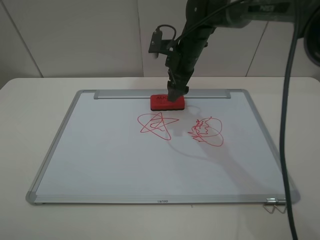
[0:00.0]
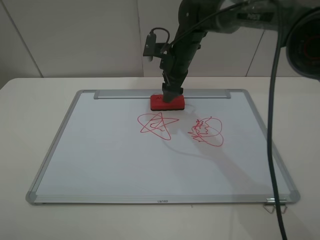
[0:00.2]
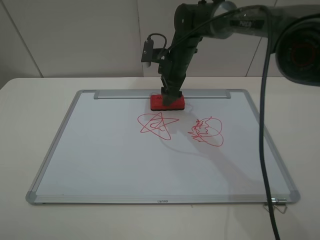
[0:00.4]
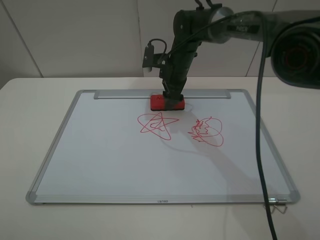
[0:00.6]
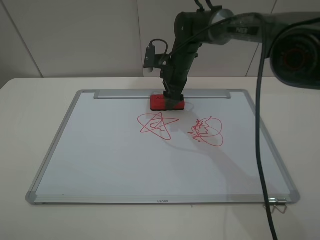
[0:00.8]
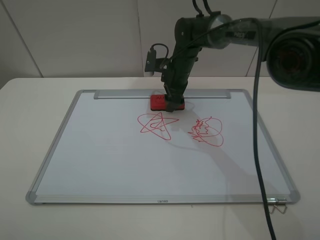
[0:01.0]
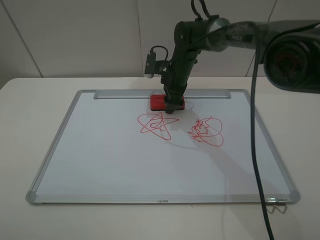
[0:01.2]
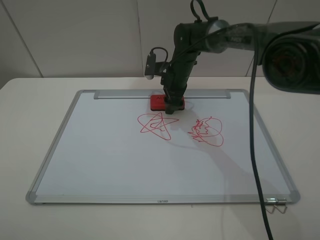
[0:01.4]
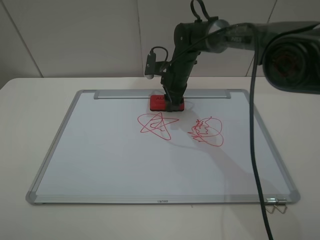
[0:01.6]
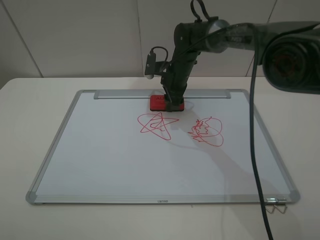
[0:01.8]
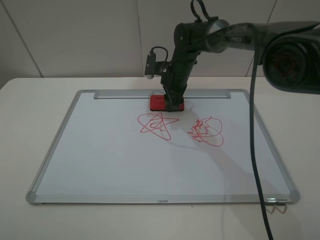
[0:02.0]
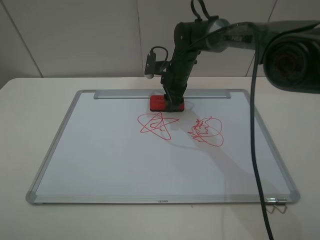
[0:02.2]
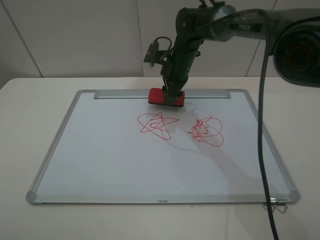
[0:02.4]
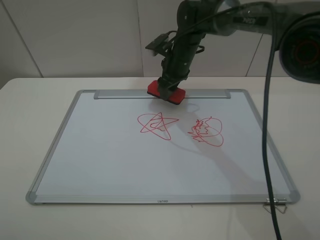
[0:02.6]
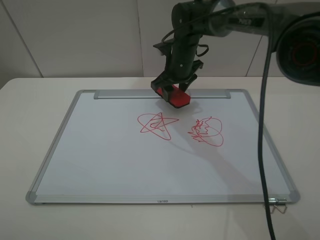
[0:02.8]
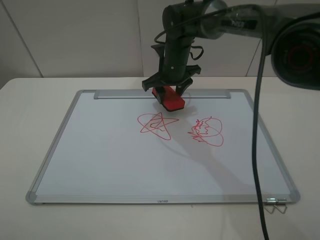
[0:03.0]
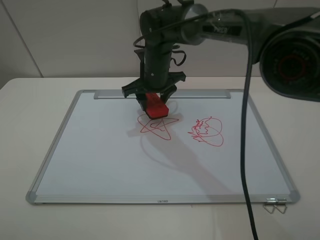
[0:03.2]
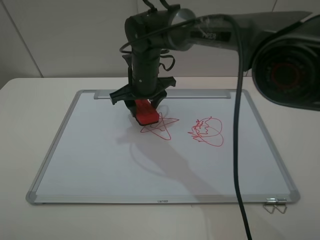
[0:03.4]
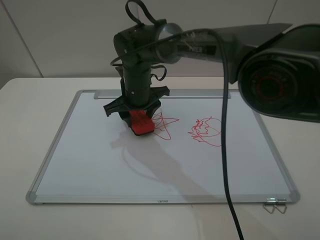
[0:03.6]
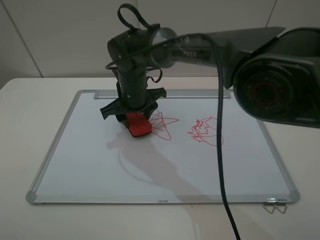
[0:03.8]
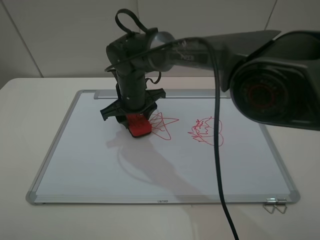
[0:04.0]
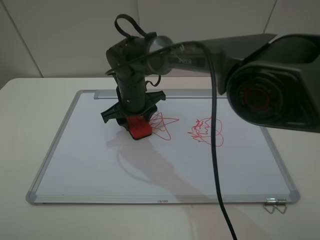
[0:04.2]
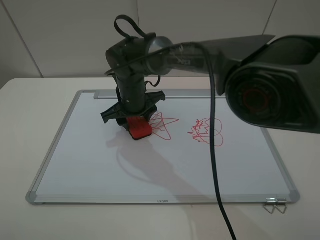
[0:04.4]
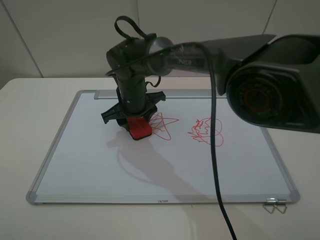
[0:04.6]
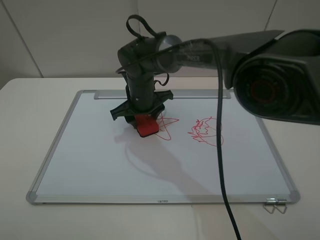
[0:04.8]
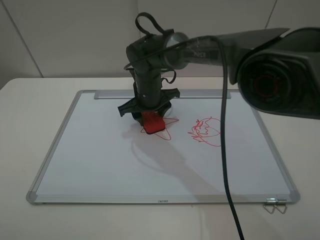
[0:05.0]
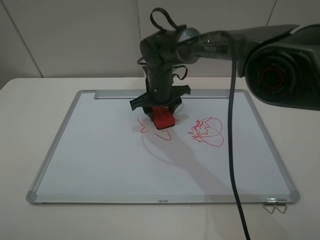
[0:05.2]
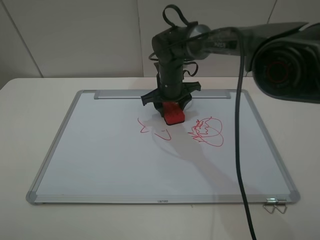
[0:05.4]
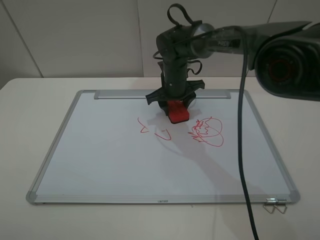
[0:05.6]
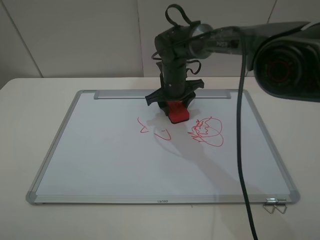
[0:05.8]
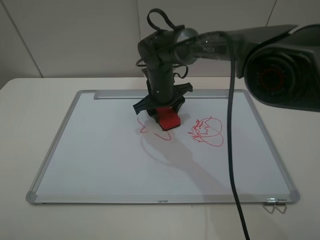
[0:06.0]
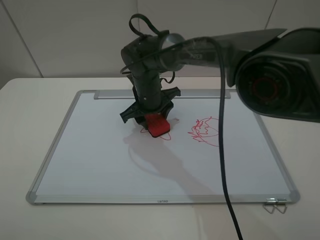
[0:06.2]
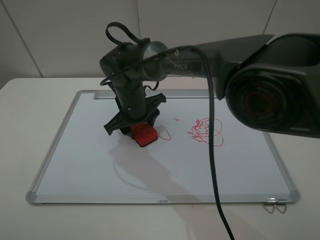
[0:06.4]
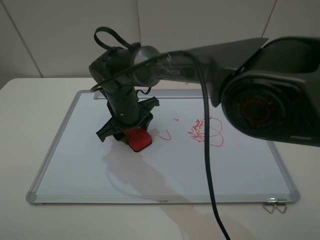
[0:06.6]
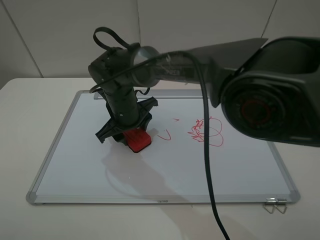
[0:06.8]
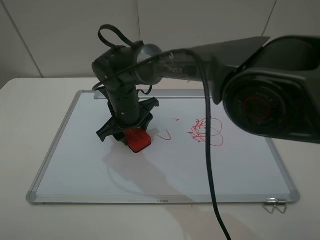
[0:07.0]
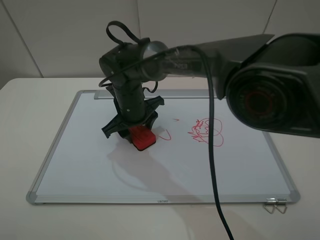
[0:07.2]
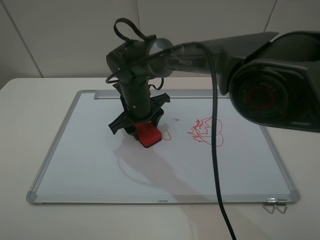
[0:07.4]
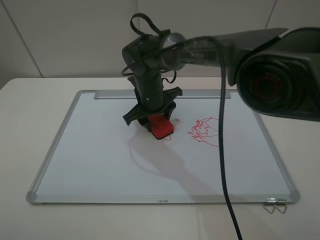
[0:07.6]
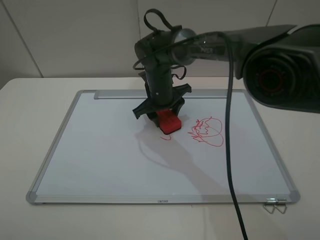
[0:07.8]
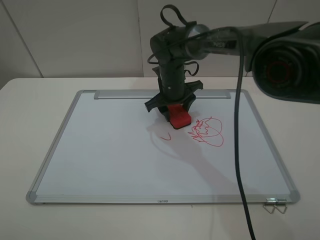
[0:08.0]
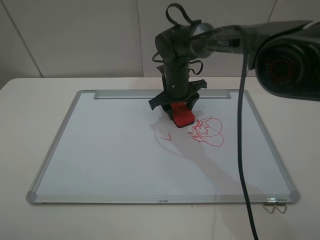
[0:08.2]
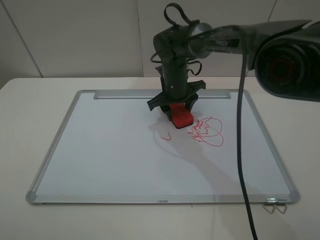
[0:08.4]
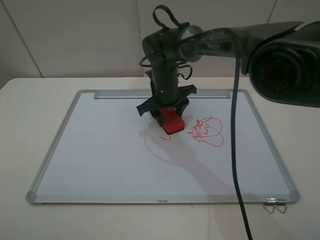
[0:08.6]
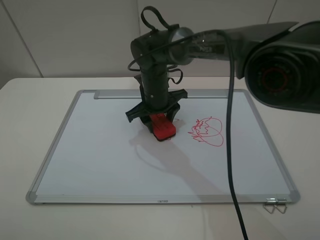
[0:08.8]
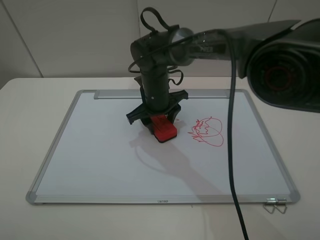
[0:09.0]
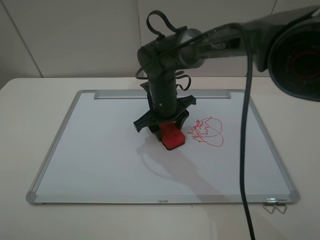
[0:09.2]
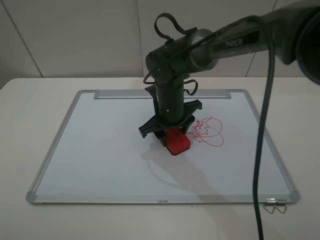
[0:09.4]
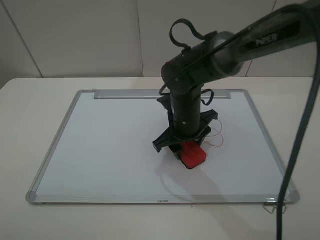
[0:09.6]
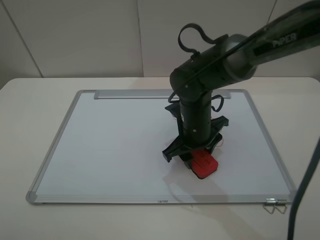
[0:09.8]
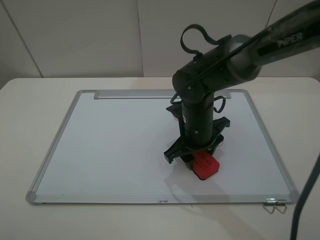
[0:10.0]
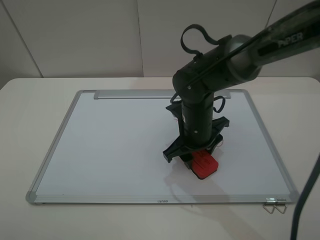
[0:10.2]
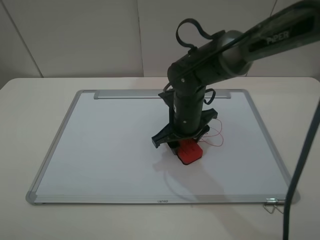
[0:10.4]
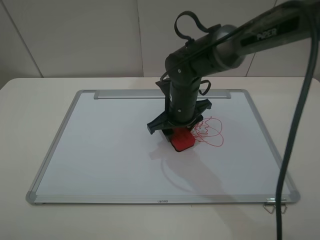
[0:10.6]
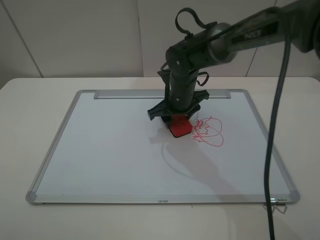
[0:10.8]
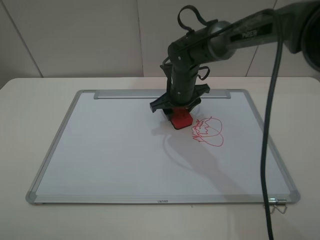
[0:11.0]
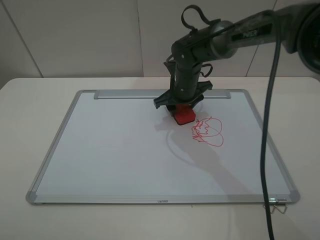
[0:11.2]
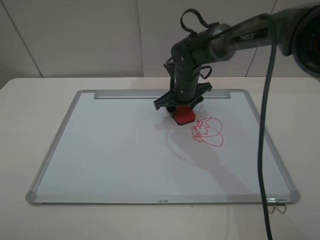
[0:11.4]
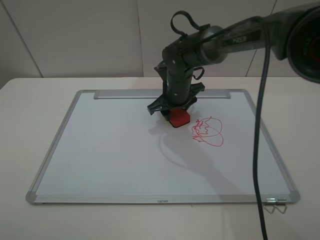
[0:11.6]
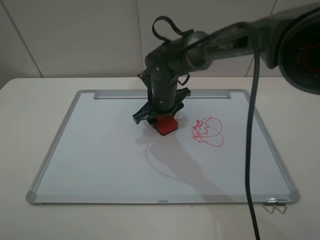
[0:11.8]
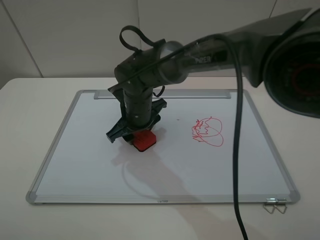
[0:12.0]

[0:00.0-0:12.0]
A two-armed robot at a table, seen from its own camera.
0:00.0 to 0:01.6: The right gripper travels downward by some 5 cm, and closes its fingers.
0:01.6 to 0:03.0: The right gripper moves some 5 cm.
0:03.0 to 0:04.4: The right gripper heads to the left and backward, covering some 10 cm.
0:04.4 to 0:06.0: The right gripper is displaced to the right by about 5 cm.
0:09.0 to 0:10.4: The right gripper travels backward and to the right by approximately 10 cm.
0:10.4 to 0:12.0: The right gripper is displaced to the left by some 10 cm.

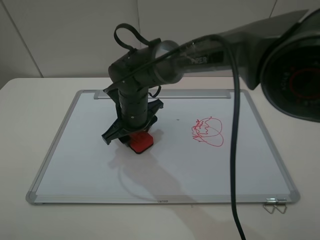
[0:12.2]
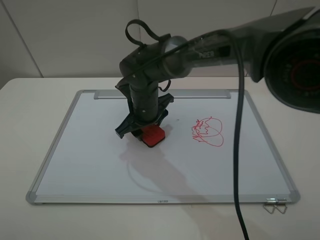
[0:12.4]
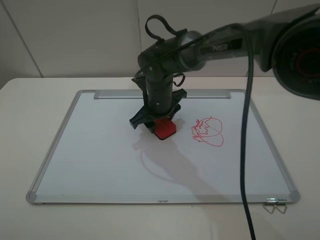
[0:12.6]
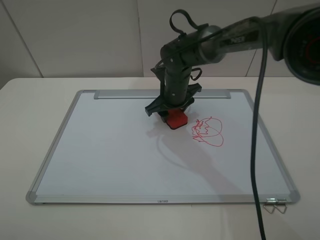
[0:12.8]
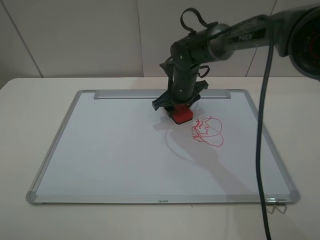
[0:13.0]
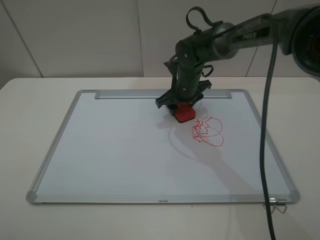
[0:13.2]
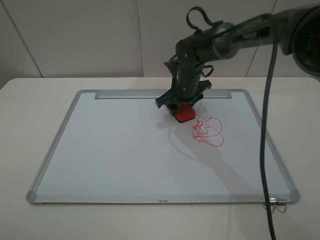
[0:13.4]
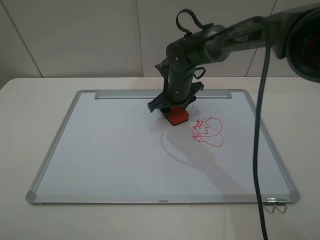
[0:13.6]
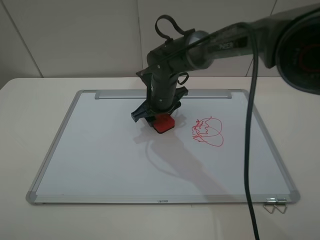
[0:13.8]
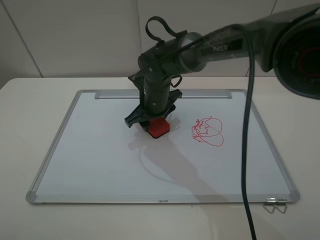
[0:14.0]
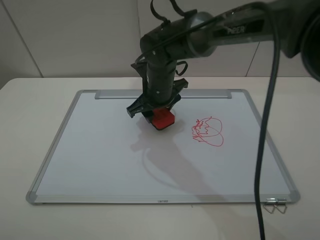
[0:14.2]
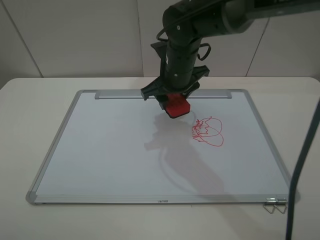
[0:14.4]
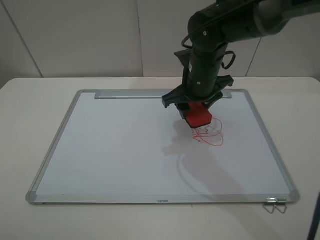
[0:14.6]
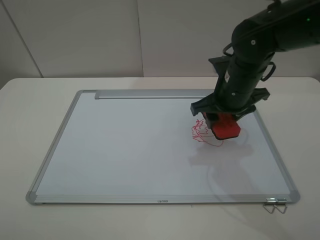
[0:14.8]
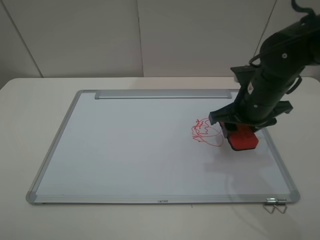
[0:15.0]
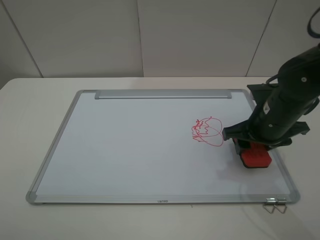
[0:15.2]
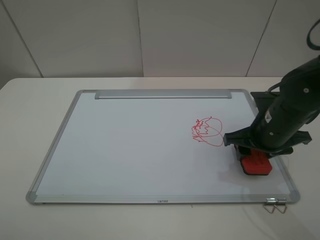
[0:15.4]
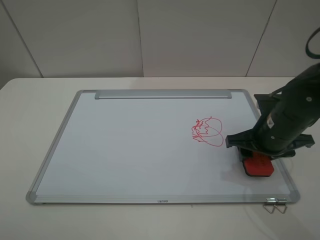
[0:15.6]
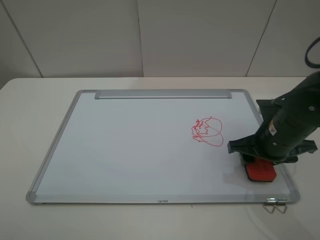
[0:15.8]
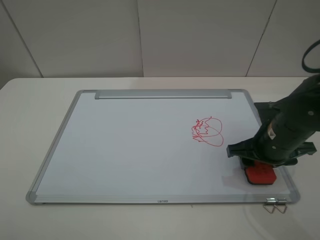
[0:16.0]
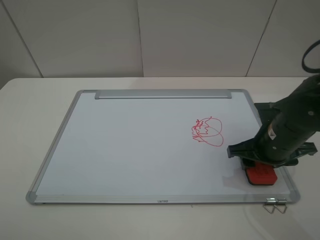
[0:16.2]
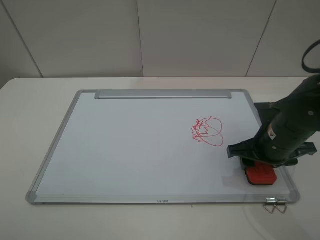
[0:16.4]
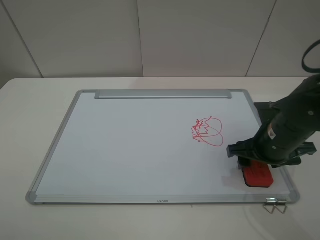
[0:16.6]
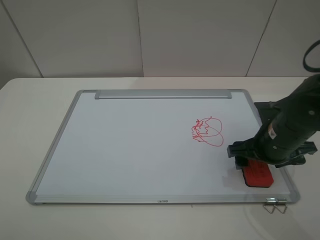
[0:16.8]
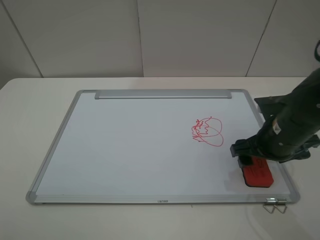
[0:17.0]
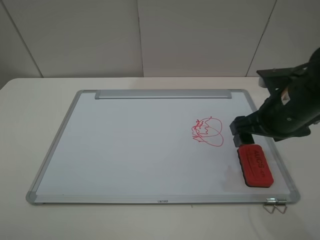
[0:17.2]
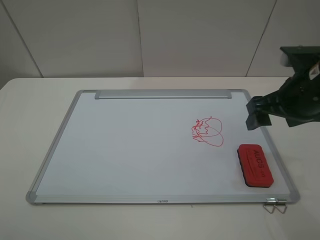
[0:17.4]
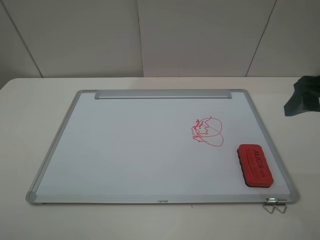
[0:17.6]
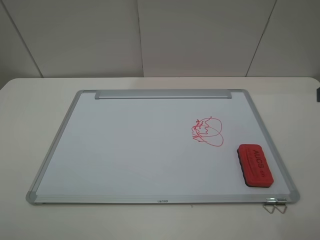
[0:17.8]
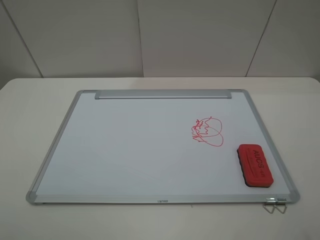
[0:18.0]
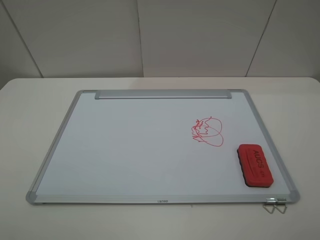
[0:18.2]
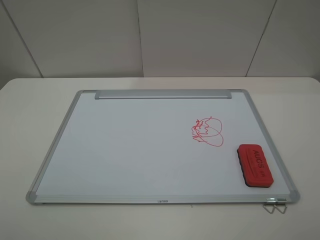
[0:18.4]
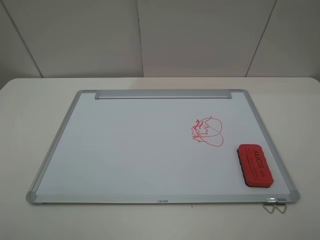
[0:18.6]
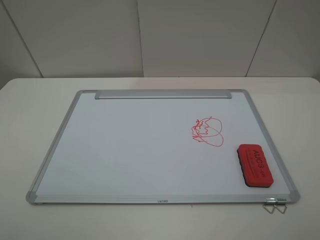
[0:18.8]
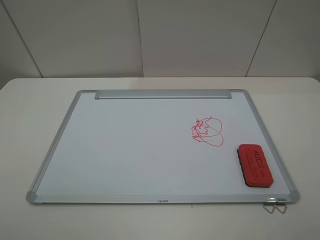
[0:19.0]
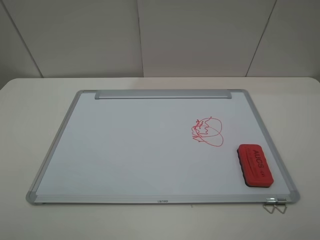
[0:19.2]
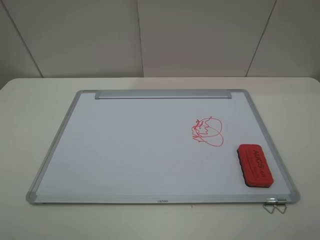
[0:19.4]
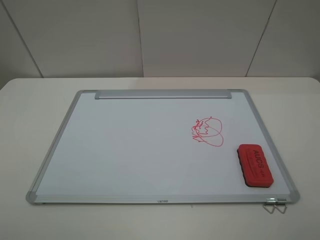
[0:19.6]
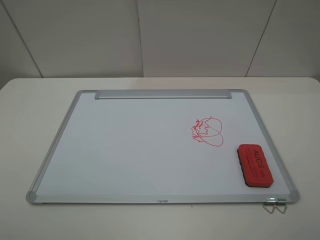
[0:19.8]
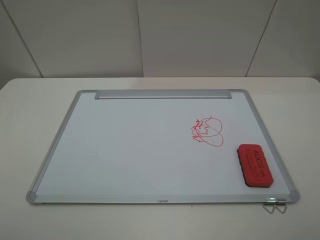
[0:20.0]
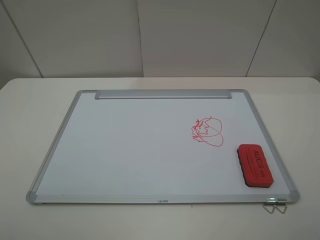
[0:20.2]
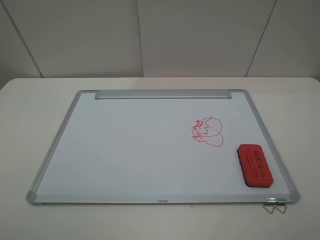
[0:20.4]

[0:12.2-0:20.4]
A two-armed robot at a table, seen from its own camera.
Step, 0:12.2 to 0:14.2: Grasp the eraser and wipe the blackboard with the right gripper.
Step, 0:14.4 to 0:17.0: Place the eraser with the right gripper.
0:12.2 to 0:13.8: The right gripper shifts approximately 10 cm to the right and forward.
0:13.8 to 0:15.4: The right gripper heads to the right and backward, covering some 25 cm.
0:15.4 to 0:17.2: The right gripper travels upward by roughly 5 cm, and opens.
0:17.2 to 0:18.8: The right gripper shifts approximately 25 cm backward and upward.
0:18.8 to 0:20.4: The two grippers keep their place.
